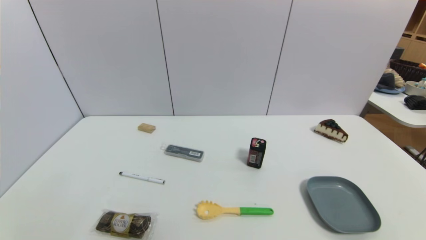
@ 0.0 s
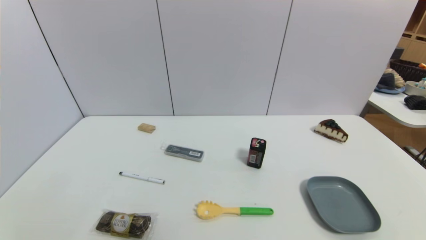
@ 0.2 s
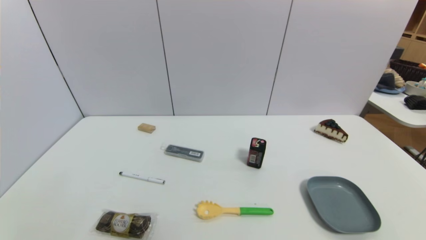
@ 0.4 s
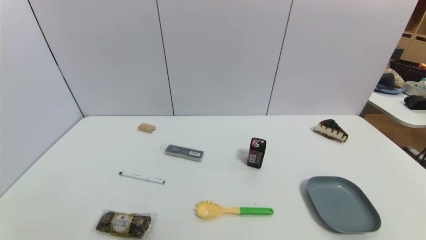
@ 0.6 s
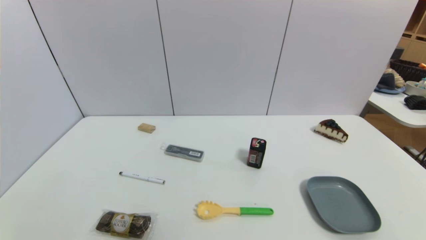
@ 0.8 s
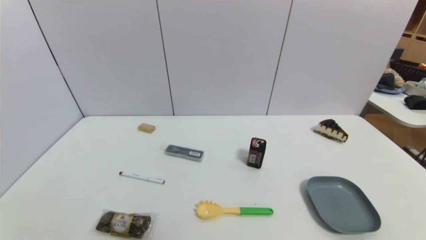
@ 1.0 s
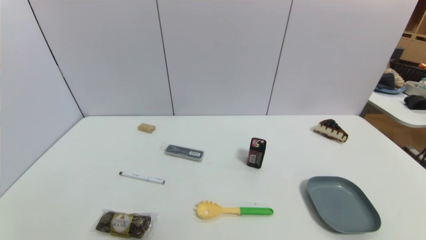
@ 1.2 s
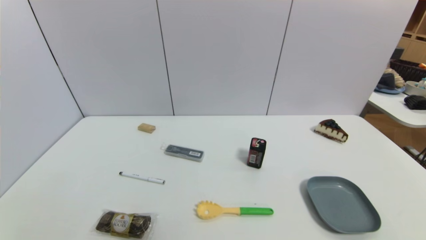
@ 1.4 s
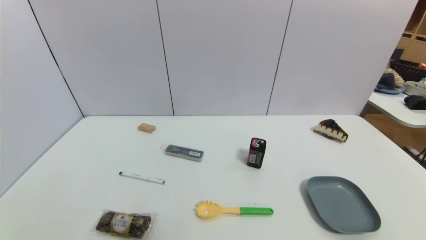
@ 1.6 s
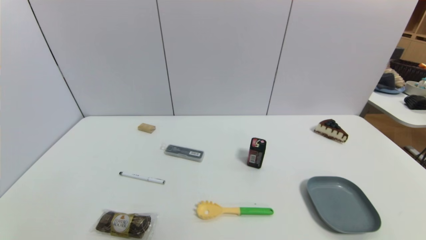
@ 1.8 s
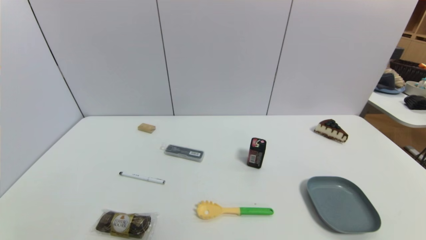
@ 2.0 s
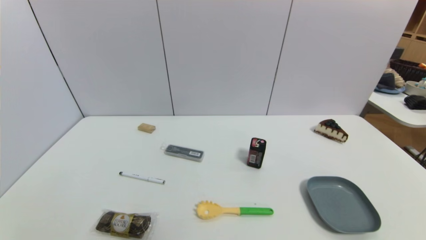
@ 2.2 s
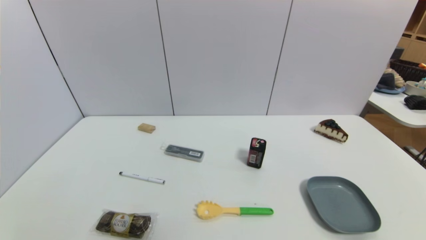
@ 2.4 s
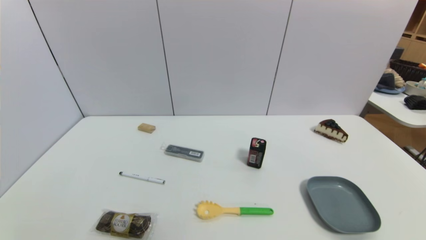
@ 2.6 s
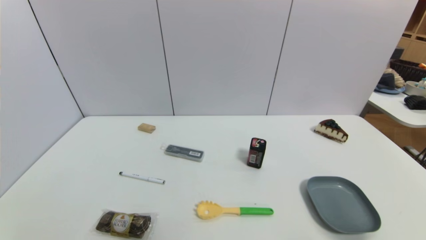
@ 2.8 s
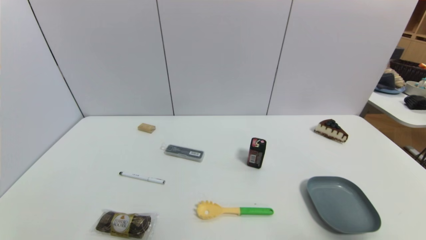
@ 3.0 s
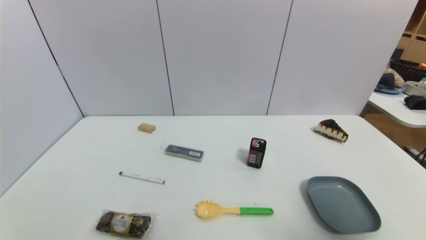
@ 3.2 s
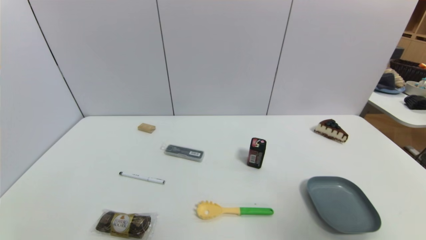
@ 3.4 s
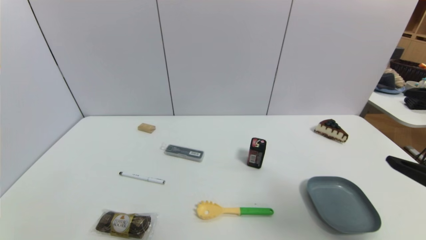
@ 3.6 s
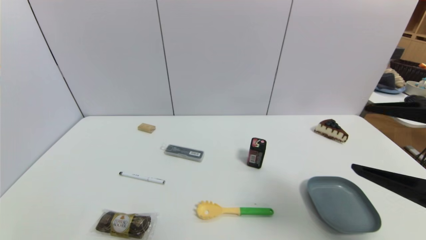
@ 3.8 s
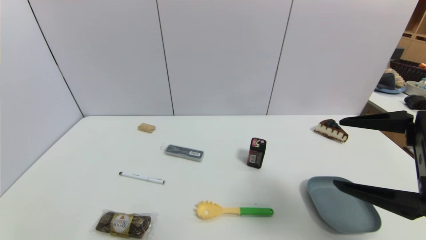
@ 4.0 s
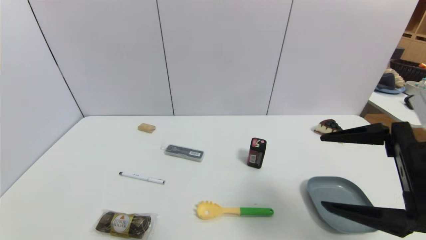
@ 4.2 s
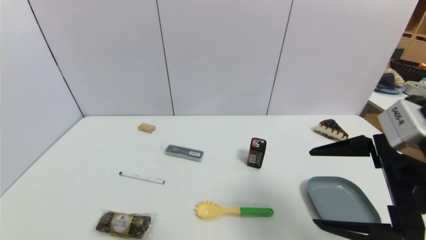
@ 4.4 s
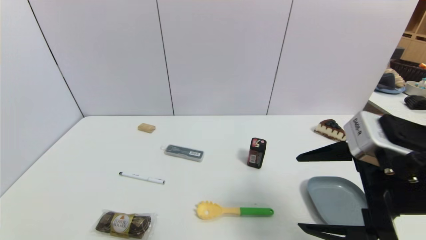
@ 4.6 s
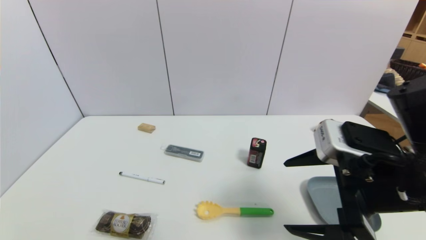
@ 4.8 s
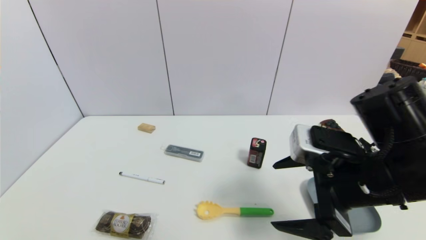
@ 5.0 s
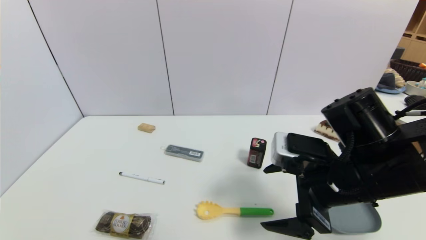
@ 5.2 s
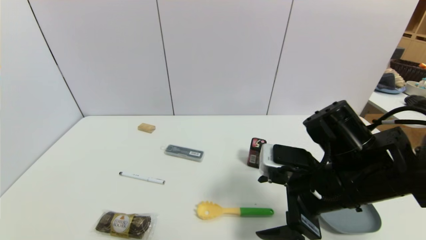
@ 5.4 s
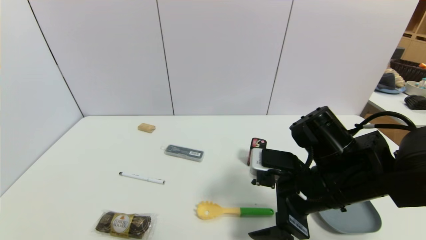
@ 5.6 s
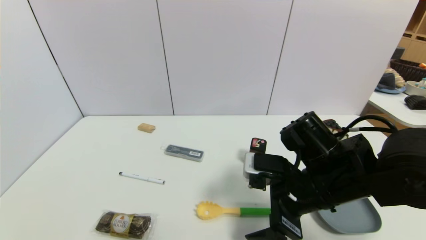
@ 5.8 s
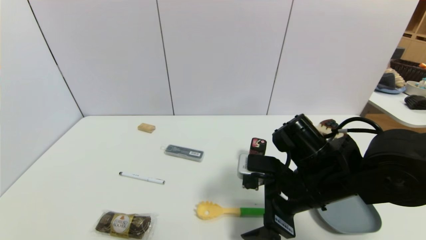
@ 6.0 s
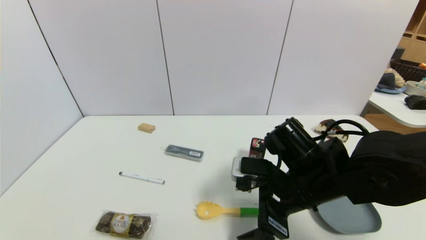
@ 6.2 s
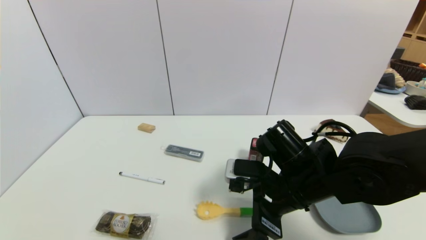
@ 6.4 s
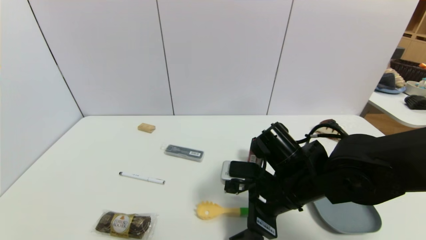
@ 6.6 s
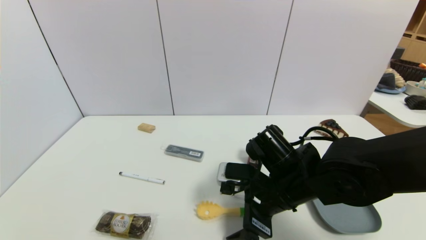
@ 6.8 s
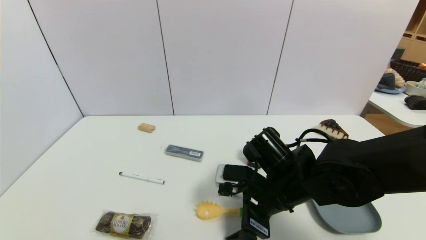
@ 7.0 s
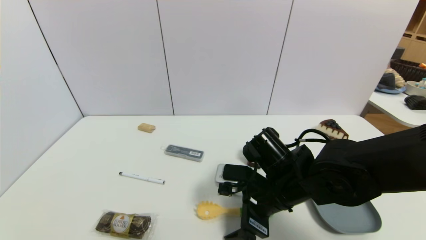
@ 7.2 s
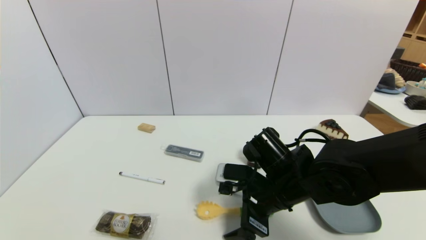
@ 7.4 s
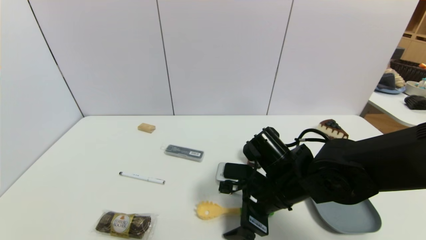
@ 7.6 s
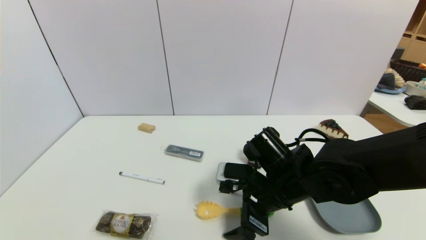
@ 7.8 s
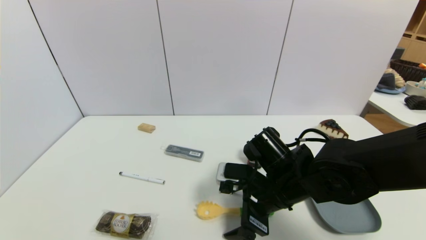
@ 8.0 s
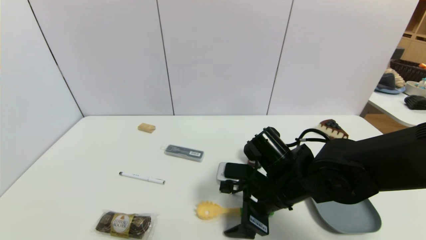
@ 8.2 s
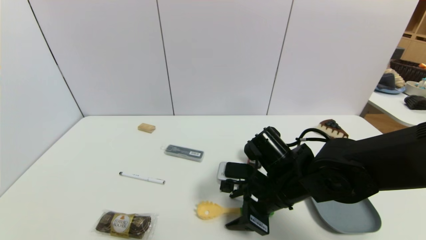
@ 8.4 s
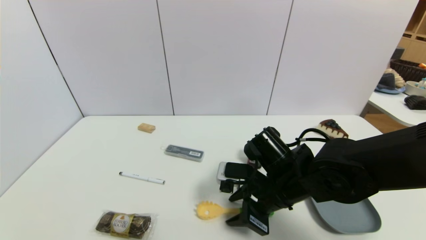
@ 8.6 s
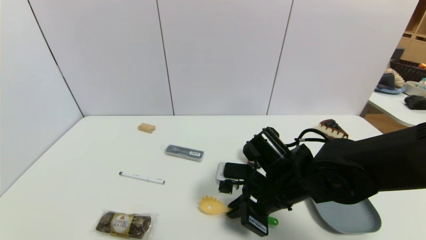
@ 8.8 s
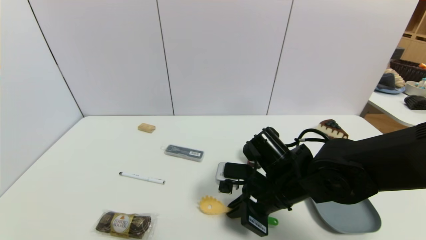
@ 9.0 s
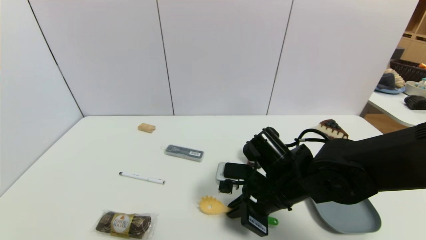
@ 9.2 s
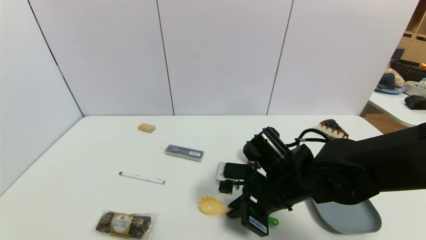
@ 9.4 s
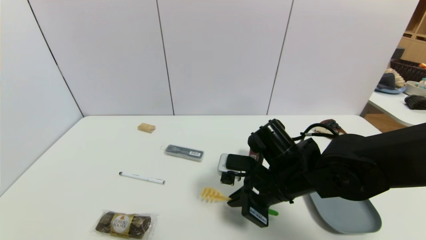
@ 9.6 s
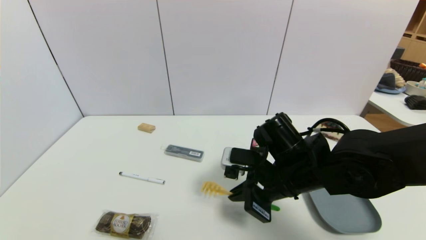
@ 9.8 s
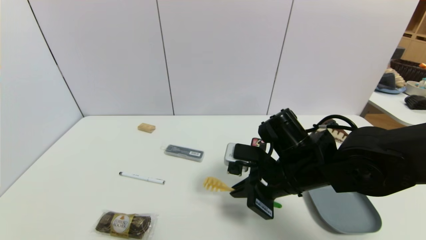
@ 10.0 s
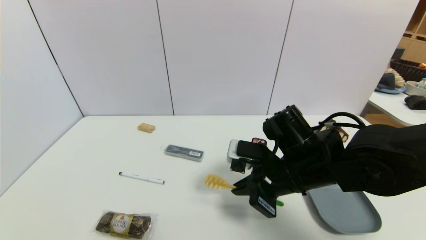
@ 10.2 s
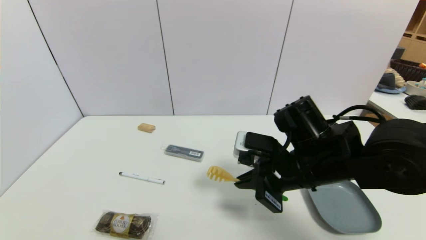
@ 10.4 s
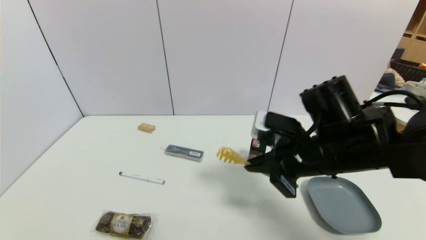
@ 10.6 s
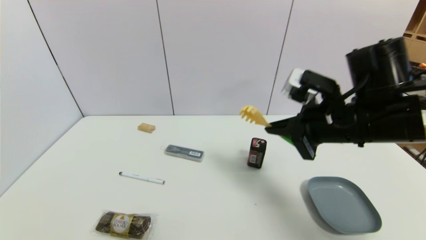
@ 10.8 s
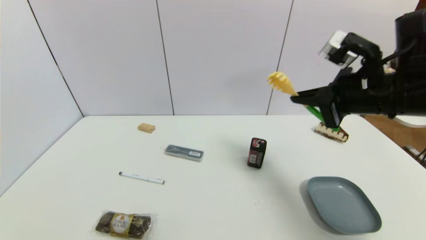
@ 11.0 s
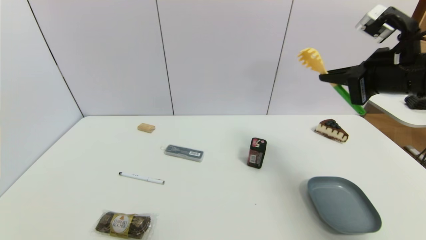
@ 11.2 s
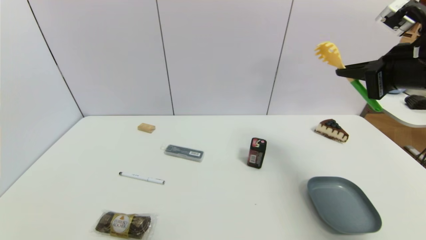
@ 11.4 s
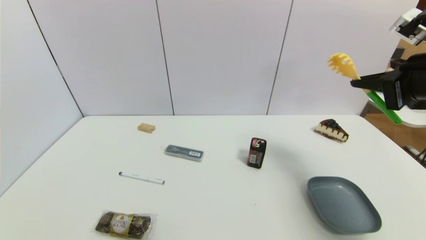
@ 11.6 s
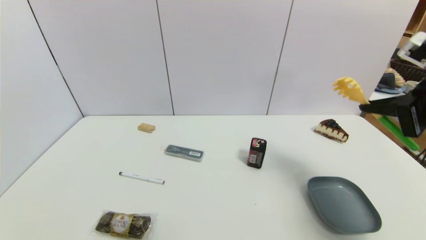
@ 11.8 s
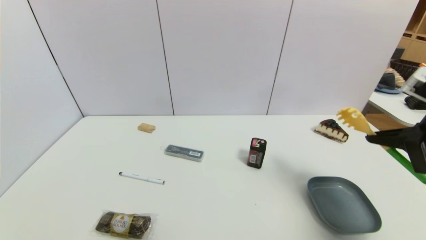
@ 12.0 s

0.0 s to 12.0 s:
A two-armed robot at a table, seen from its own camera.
Task of the whole recording: use a gripper to pick the target object and place on the dish.
Step, 0.0 to 9.0 s: Grasp the back scratcher with the right gripper.
3.0 to 4.4 s: The right gripper travels forward and to the left by some 15 cm.
4.4 to 6.0 s: The right gripper shifts some 15 cm downward, to the left and forward.
6.0 to 7.6 s: The right gripper moves roughly 5 cm.
7.6 to 9.0 s: The right gripper closes.
9.0 to 10.4 s: The right gripper shifts some 5 cm upward.
10.4 to 12.0 s: The right gripper shifts about 20 cm to the right and upward.

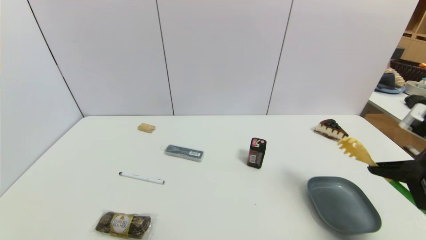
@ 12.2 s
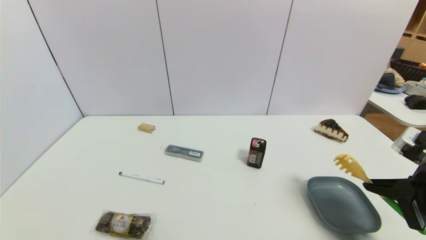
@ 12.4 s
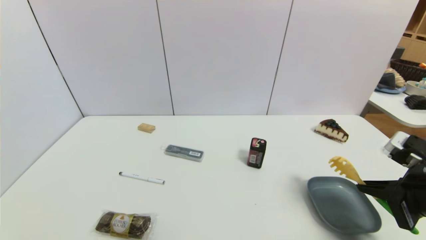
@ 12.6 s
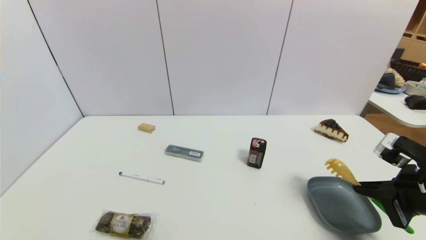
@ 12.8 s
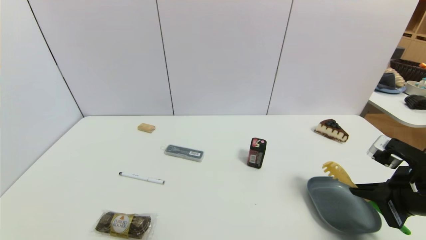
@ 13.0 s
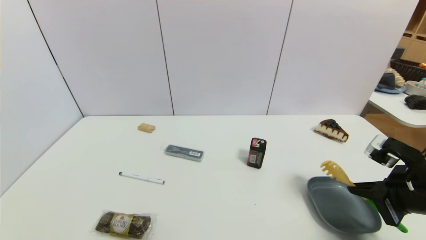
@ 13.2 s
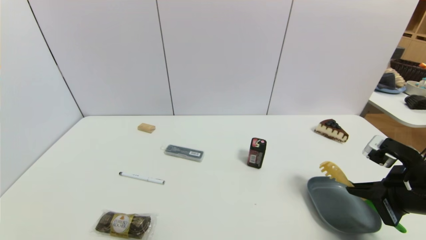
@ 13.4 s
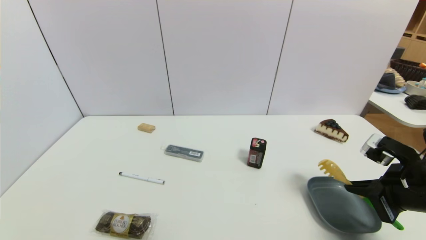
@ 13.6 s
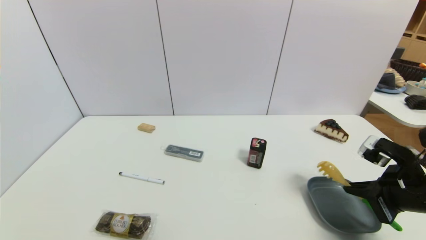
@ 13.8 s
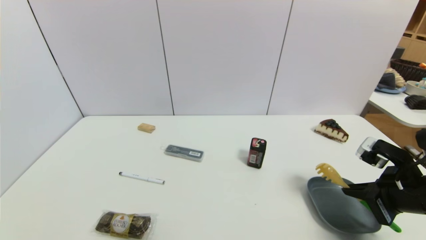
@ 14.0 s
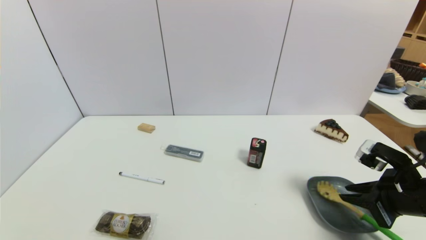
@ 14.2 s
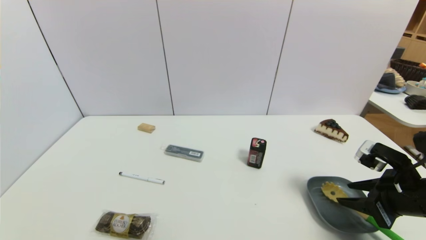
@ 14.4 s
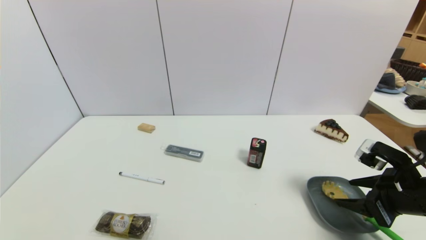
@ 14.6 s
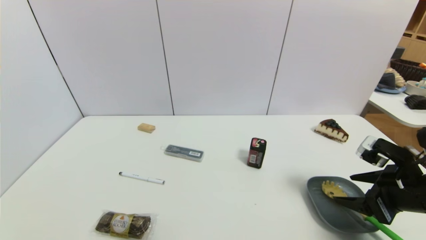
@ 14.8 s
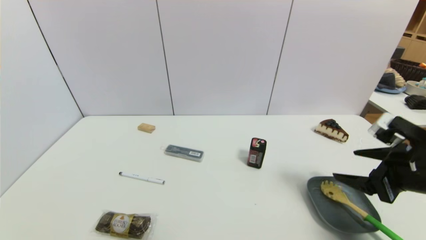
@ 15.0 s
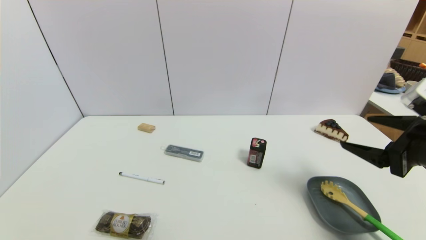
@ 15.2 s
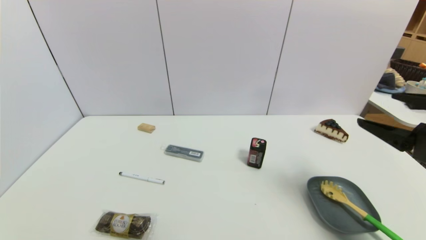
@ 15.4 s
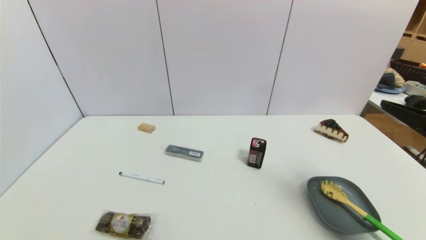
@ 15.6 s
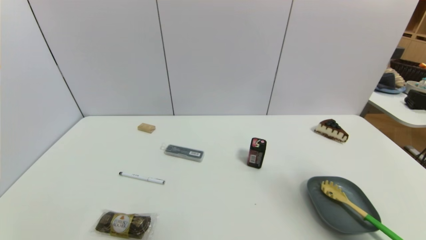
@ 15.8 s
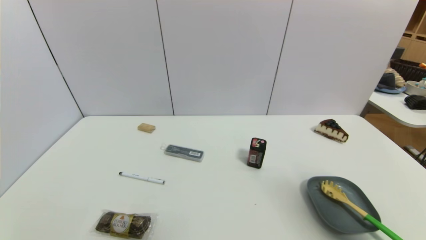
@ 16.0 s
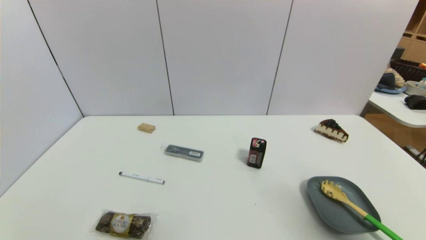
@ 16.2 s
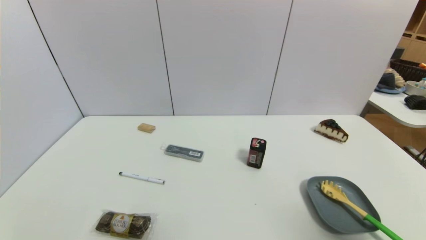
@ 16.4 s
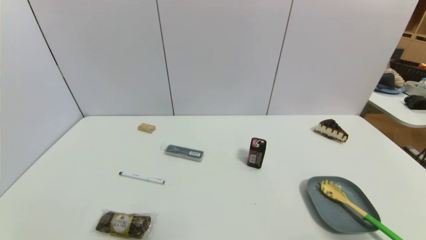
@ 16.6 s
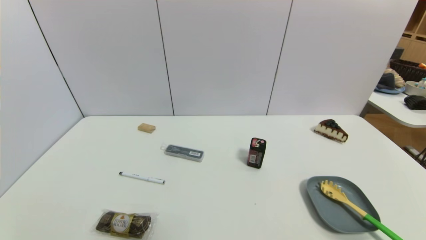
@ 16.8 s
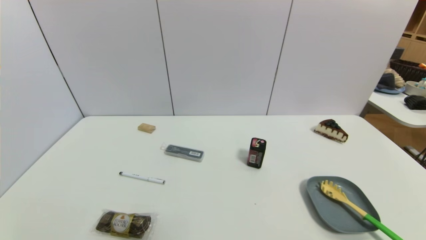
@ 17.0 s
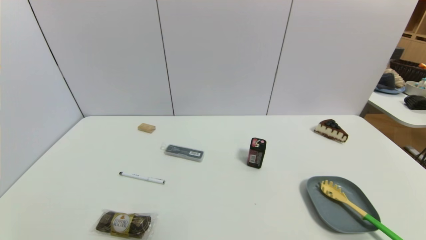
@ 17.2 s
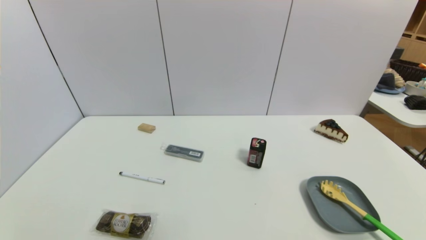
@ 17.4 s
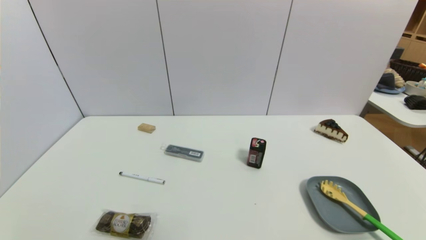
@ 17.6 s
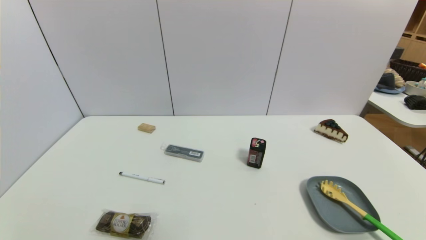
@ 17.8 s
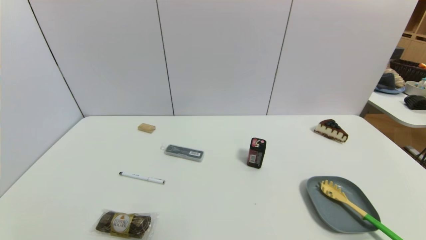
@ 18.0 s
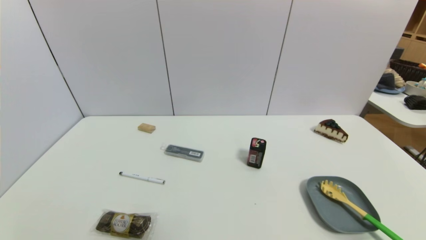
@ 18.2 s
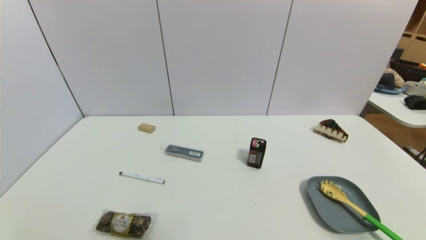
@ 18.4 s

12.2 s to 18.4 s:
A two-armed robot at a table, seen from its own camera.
Task of the whole recording: use a gripper to pick the target object and place on the dish.
Step, 12.2 to 15.2 s: Place the back scratcher on the dish with the right gripper.
12.2 to 13.8 s: The right gripper moves downward, some 5 cm.
13.8 to 15.4 s: The right gripper goes approximately 10 cm upward, and opens its fingers.
15.4 to 16.8 s: The right gripper travels backward by approximately 20 cm.
